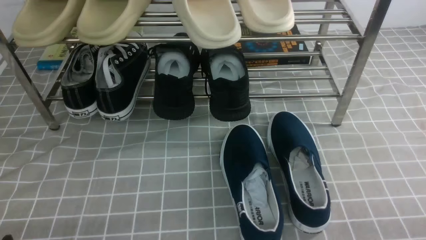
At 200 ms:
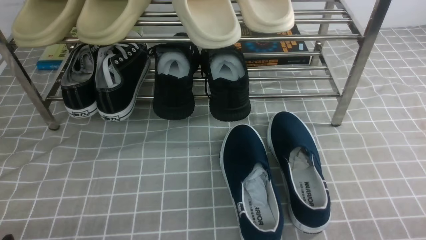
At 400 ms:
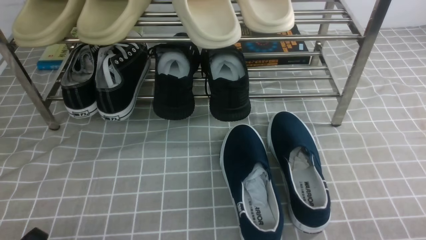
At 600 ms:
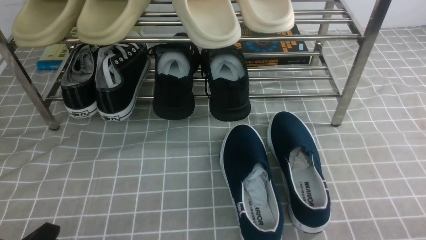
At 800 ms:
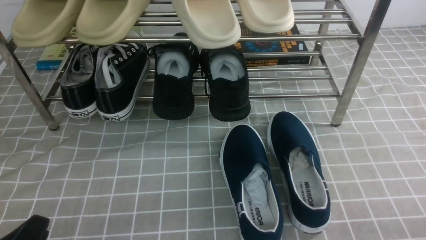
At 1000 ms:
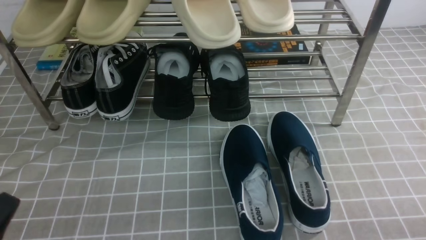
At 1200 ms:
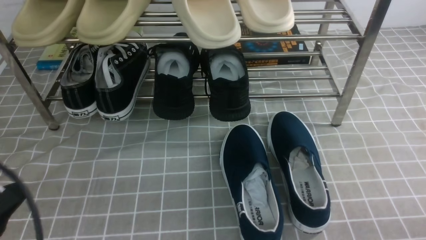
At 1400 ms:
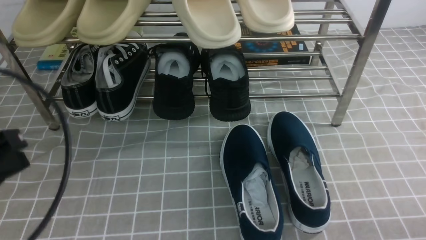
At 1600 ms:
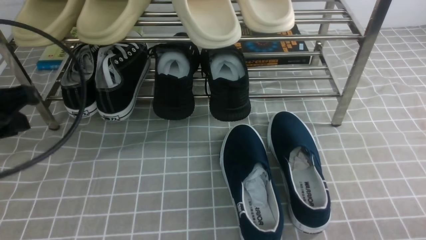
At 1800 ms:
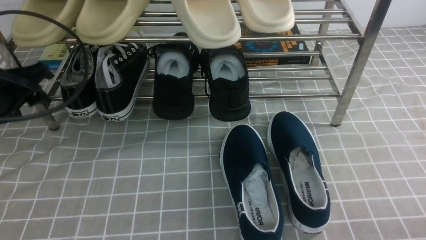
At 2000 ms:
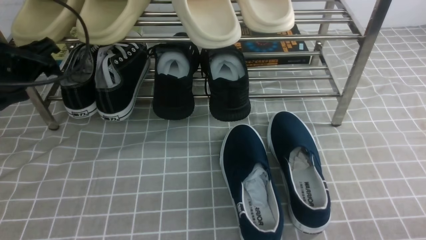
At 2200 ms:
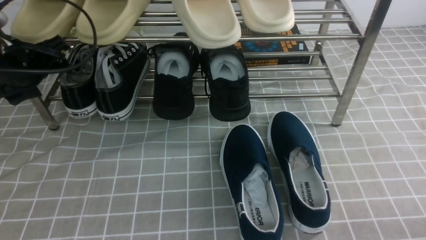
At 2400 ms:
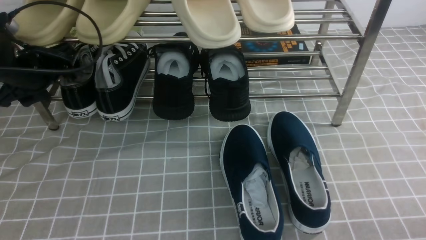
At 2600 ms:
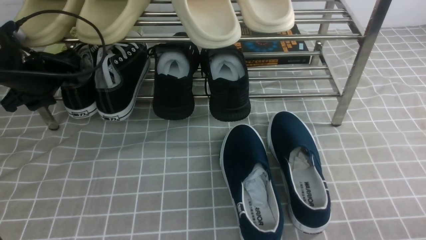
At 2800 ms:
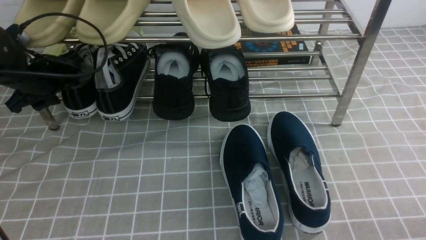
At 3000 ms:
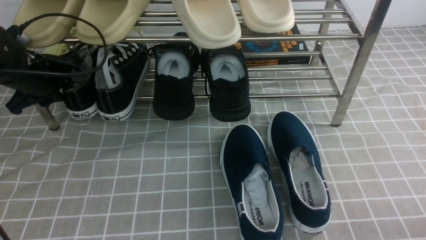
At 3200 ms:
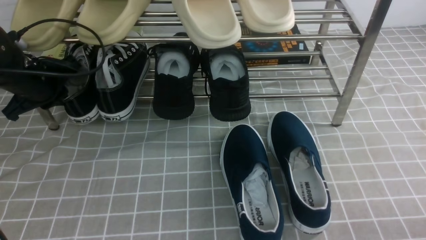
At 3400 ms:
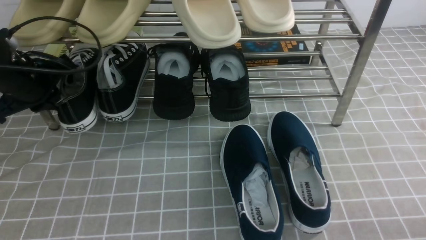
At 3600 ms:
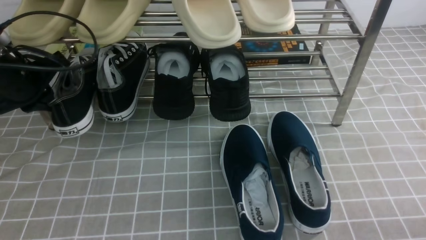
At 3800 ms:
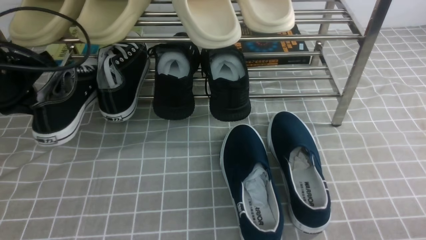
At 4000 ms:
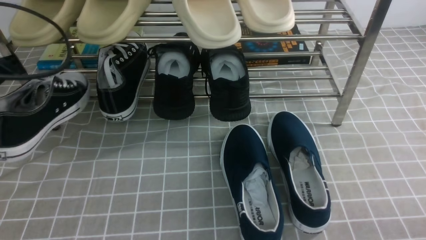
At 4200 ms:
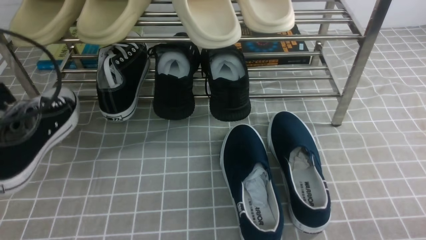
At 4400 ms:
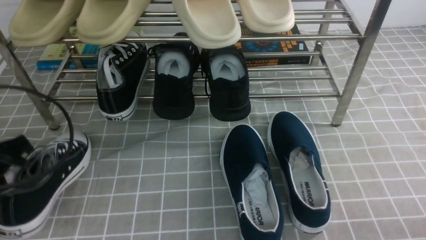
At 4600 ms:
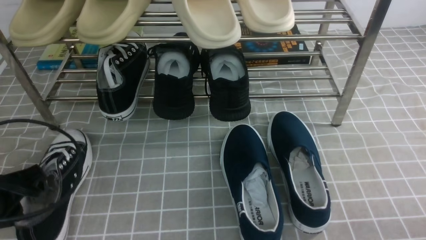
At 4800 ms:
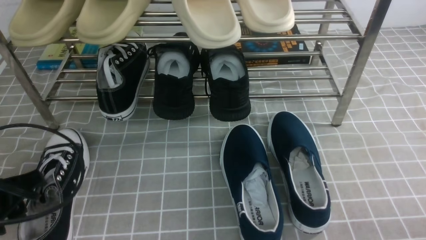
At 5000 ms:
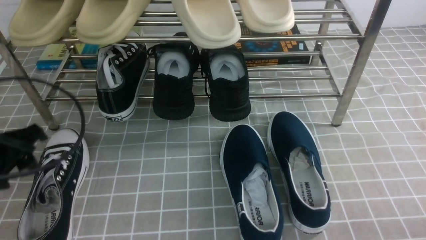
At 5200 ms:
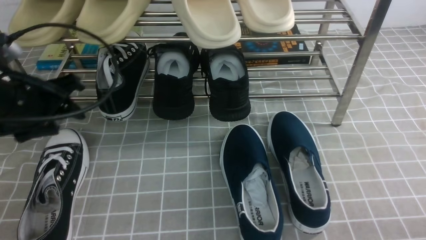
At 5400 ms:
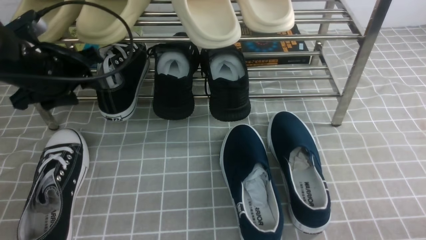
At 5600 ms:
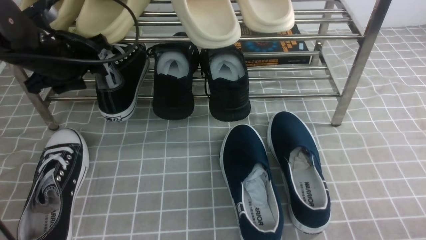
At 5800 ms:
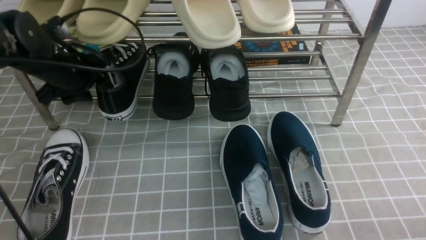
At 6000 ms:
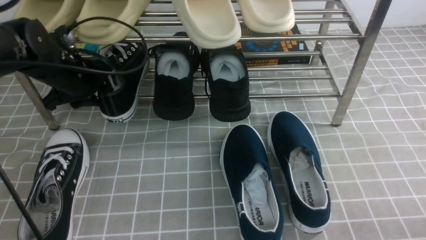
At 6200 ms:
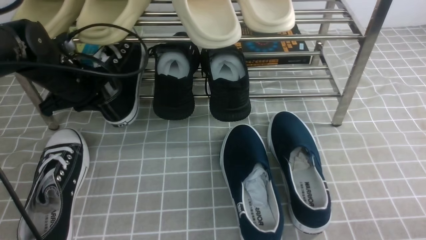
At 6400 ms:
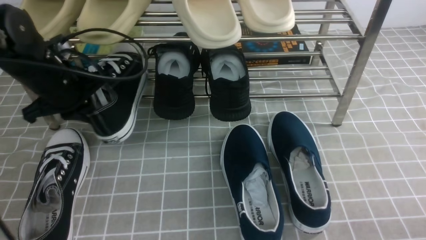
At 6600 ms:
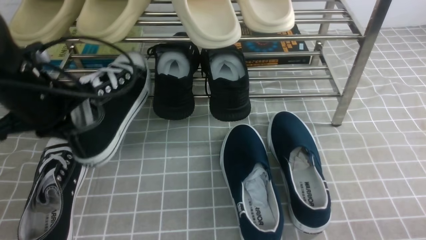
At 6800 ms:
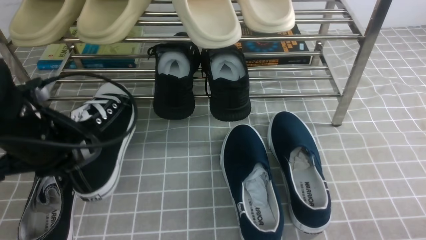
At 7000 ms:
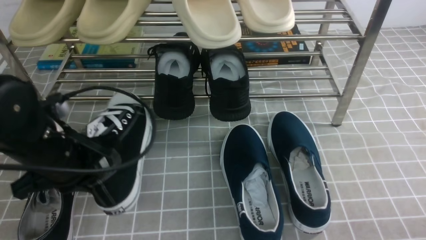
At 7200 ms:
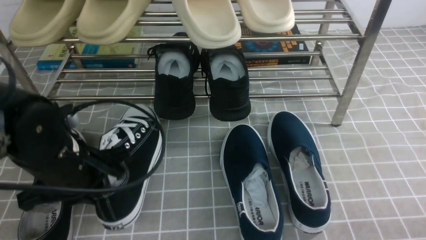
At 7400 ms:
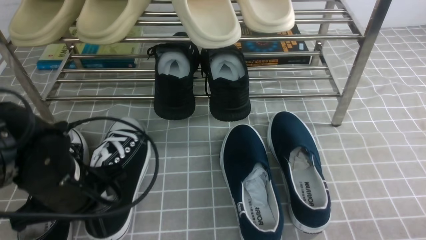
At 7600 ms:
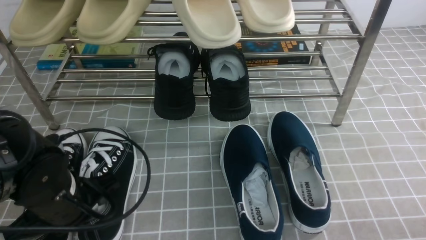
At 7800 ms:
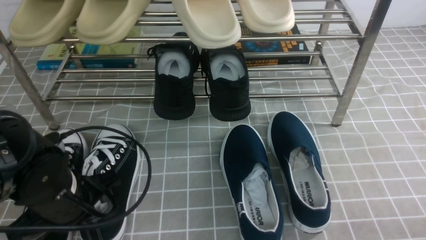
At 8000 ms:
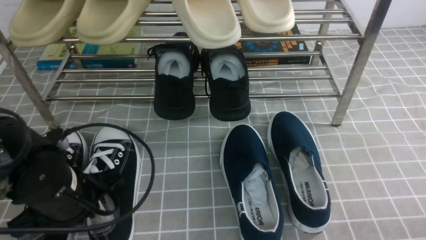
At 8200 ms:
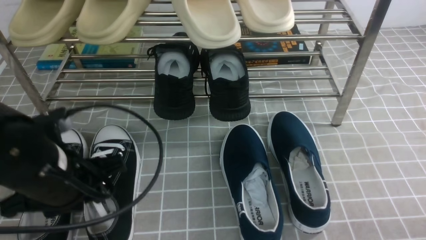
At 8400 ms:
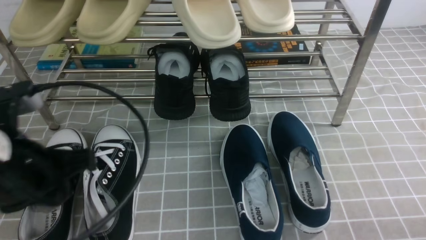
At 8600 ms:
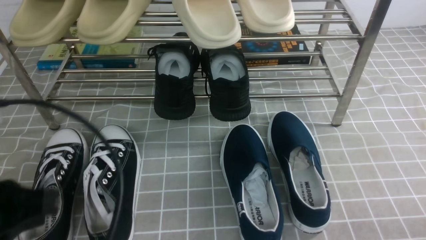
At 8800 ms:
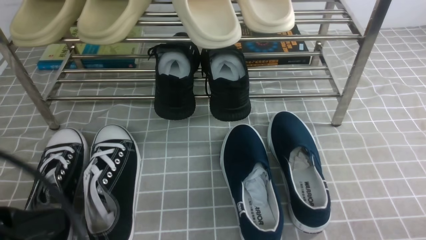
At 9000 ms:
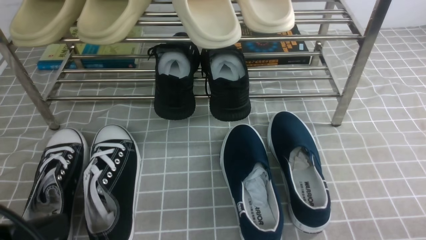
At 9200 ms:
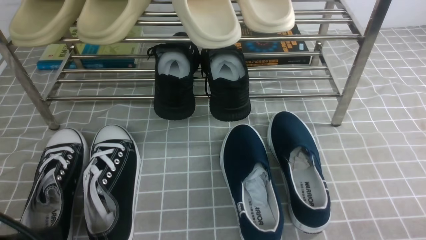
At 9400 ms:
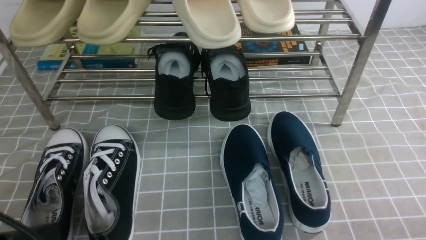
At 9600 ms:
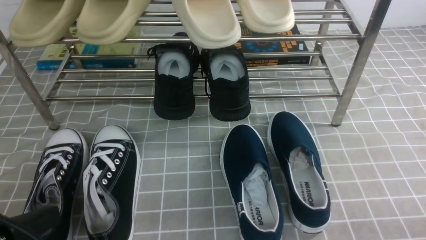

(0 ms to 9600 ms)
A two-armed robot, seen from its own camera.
Step, 0 ms - 3000 ms: use the left arm to clamp a shoe on the left side of the shoe rack.
Step, 3400 ms - 4800 ms: Use your left arm to remove the clamped shoe from the shoe rack and put it down.
Step, 5000 ms - 6000 ms: use the left arm to clamp a shoe on the left side of the shoe rack.
Step, 6400 ms - 8800 ms: Use your left arm to remove the clamped shoe from the shoe rack and put it down.
0 ms - 1600 ms: The left gripper shifts about 25 cm upward and forward, and closes and opens again.
1600 ms - 3200 ms: The left gripper shifts about 15 cm forward and downward, and opens, then closes once more.
3200 ms - 4800 ms: The left gripper shifts roughly 15 cm backward, and opens its fingers.
4800 ms - 6400 ms: The left gripper heads forward, covering some 15 cm, and closes.
6400 ms - 8000 ms: The left gripper heads backward, covering about 15 cm.
8000 ms - 9600 ms: The left gripper heads backward, covering some 15 cm.

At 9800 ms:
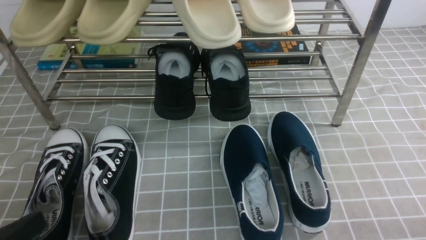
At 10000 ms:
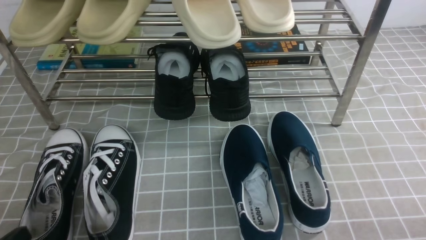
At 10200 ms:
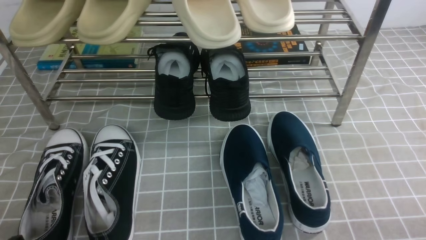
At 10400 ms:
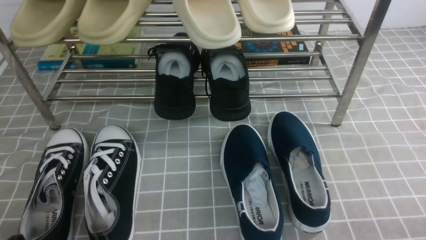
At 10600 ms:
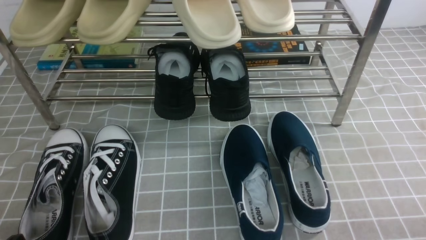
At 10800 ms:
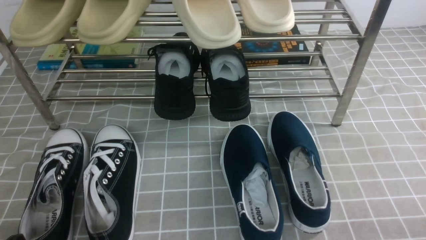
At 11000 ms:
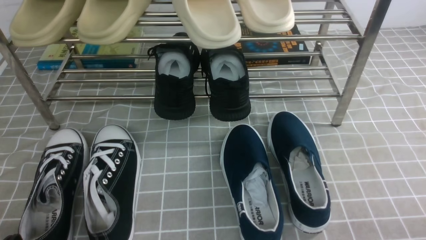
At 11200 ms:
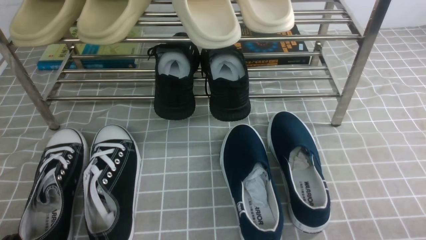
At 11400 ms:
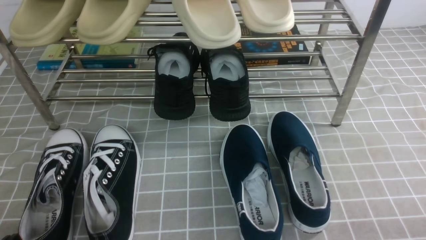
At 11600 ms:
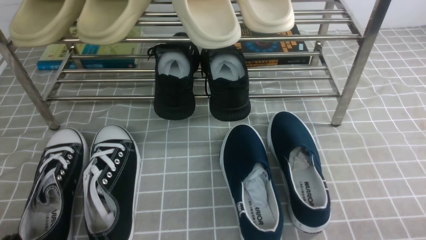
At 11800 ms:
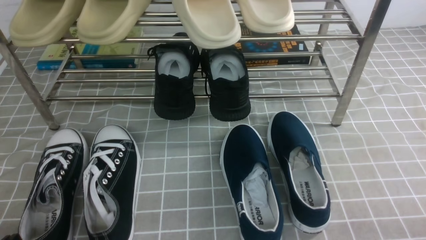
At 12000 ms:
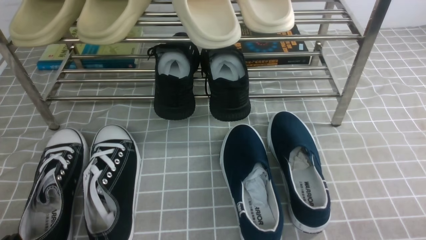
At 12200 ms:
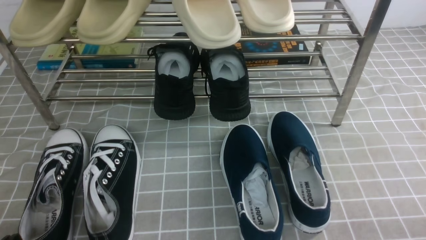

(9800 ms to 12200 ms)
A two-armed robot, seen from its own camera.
9800 ms - 11000 ms: The left gripper shifts some 5 cm downward.
11000 ms - 12200 ms: Neither gripper changes place.
